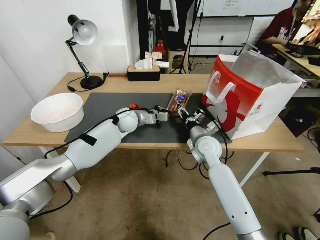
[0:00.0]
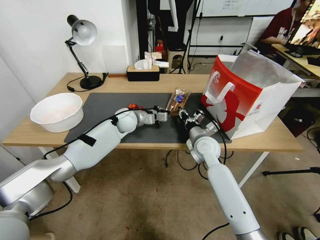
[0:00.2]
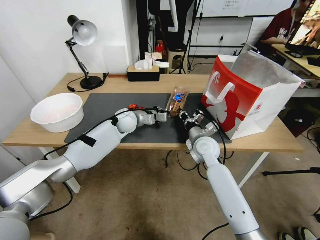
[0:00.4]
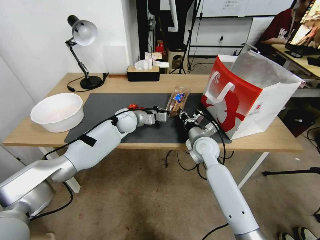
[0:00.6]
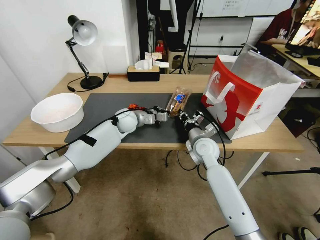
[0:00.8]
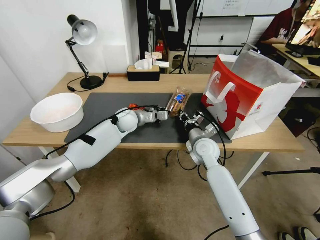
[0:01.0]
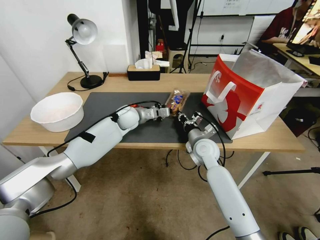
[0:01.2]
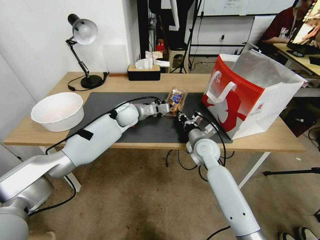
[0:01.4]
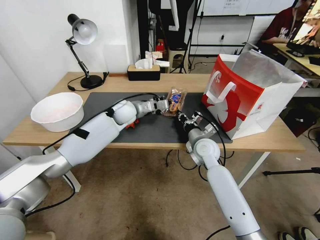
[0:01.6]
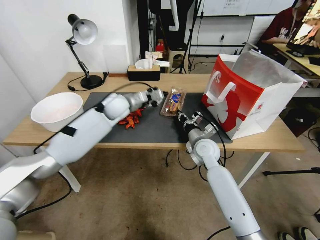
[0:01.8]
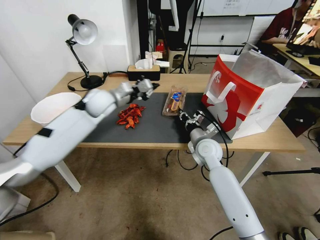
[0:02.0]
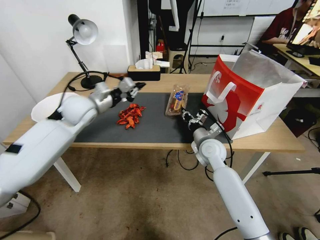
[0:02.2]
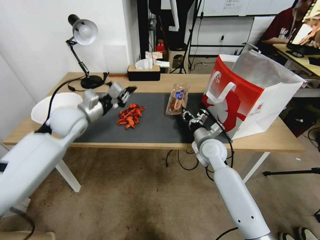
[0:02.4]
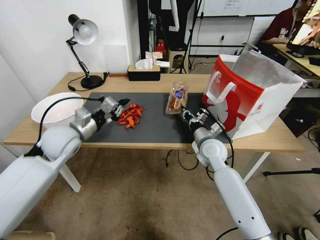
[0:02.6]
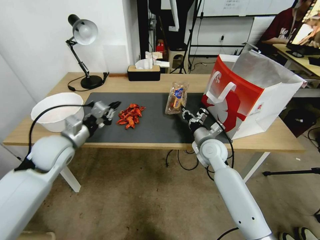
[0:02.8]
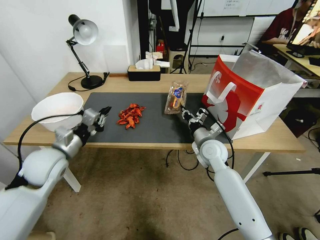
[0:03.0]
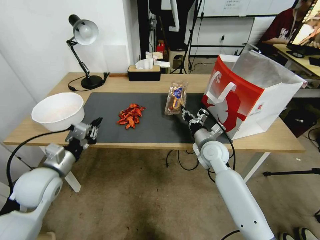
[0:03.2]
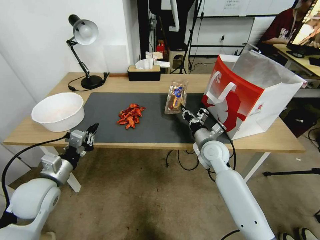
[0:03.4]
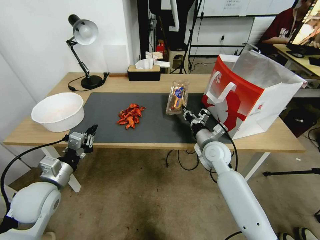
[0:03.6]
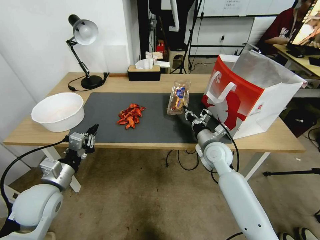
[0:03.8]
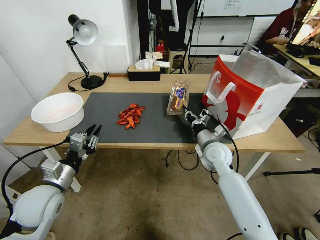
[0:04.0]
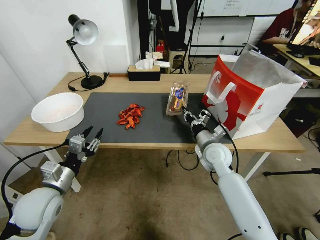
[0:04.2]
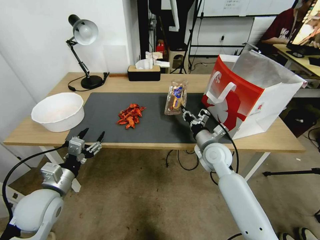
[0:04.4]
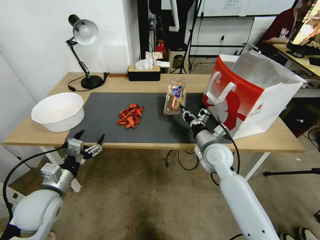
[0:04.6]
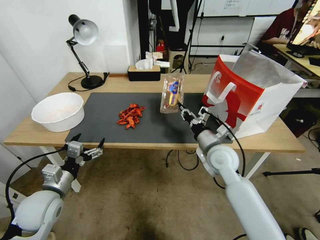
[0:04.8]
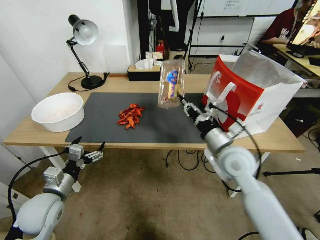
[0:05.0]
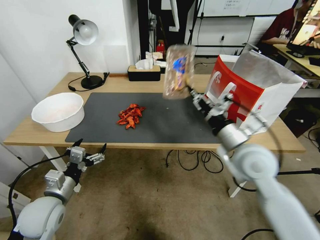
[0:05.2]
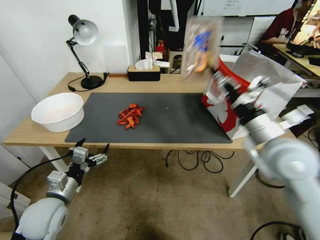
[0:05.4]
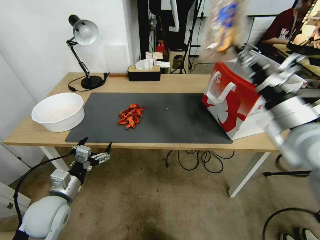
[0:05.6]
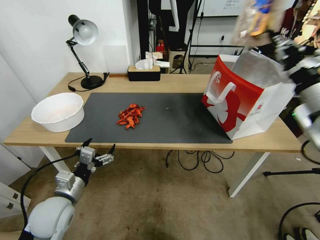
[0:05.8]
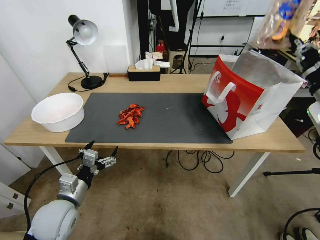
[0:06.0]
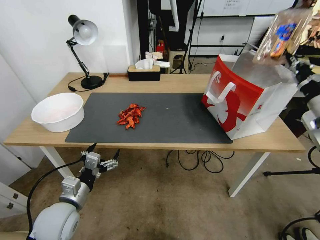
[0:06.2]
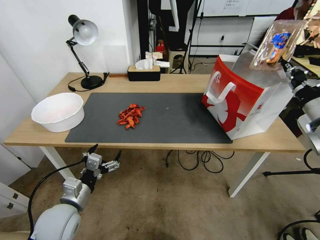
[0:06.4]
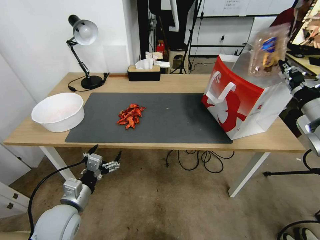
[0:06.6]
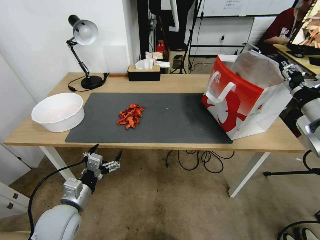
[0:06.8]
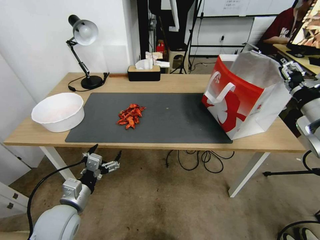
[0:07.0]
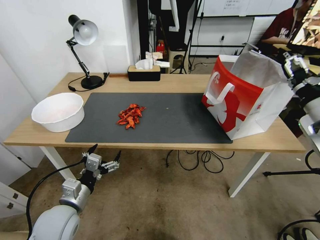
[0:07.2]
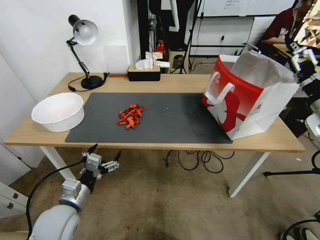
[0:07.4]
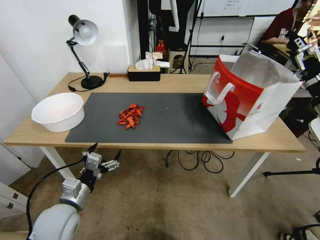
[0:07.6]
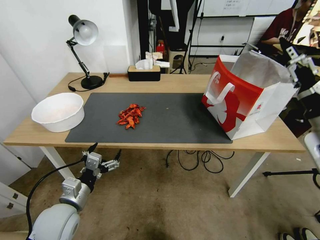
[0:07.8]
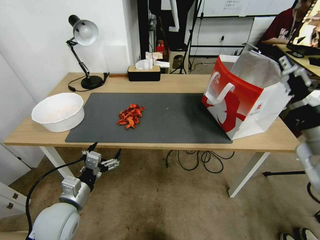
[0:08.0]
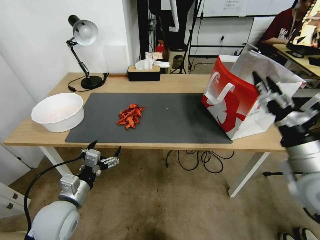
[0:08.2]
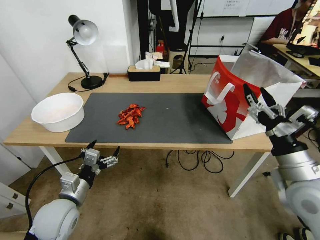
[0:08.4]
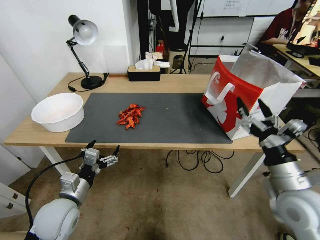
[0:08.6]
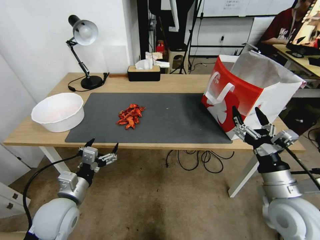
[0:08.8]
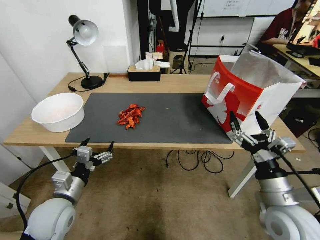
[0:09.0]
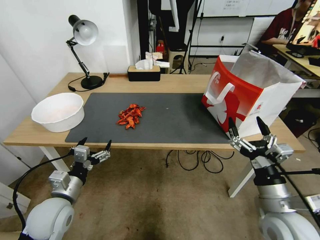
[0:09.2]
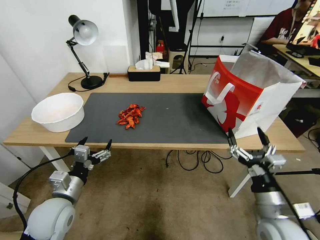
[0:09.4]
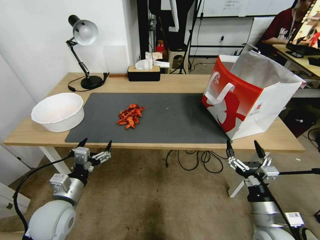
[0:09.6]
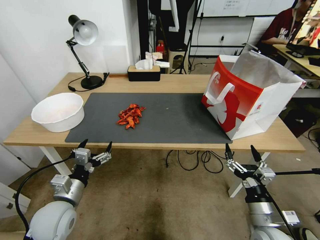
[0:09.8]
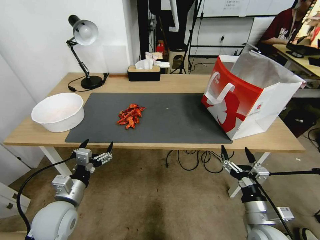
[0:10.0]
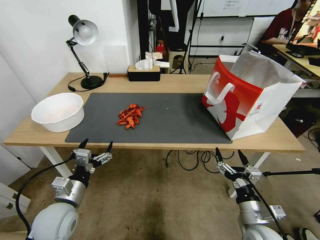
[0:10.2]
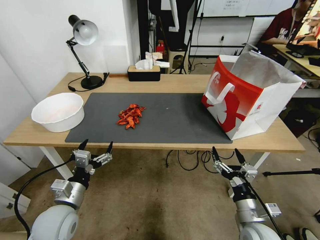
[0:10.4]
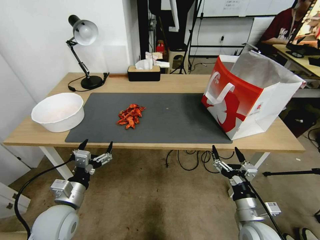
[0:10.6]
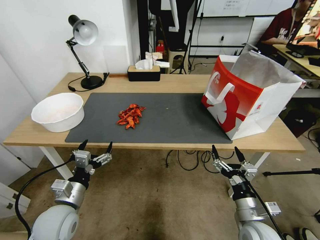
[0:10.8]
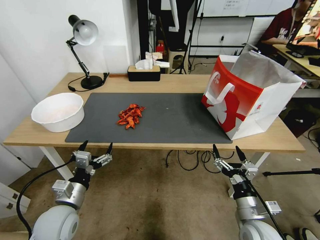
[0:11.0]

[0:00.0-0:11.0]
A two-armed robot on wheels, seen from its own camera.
0:00.0 to 0:01.6: The left gripper goes roughly 5 cm upward; the right gripper closes.
0:01.6 to 0:03.2: The left gripper shifts about 35 cm backward and to the left.
0:03.2 to 0:04.8: The right gripper shifts by roughly 5 cm. The left gripper heads downward, covering some 5 cm, and opens up.
0:04.8 to 0:06.2: The right gripper travels to the right and upward by about 30 cm. The left gripper goes approximately 5 cm to the right.
0:06.2 to 0:07.8: The right gripper shifts approximately 5 cm backward, and opens up.
0:07.8 to 0:09.4: The right gripper heads downward, backward and to the left, covering approximately 25 cm.
0:09.4 to 0:11.0: The right gripper heads downward, covering approximately 5 cm.
